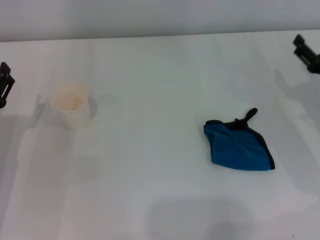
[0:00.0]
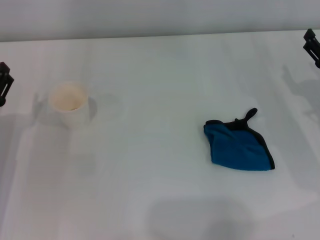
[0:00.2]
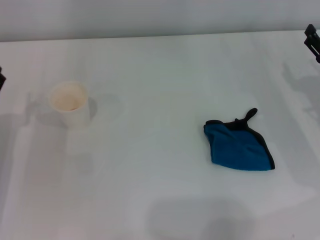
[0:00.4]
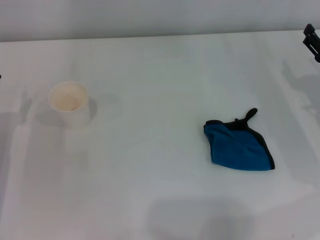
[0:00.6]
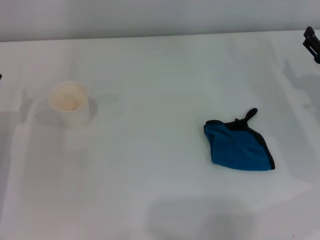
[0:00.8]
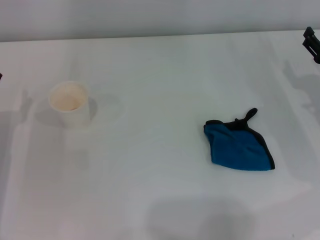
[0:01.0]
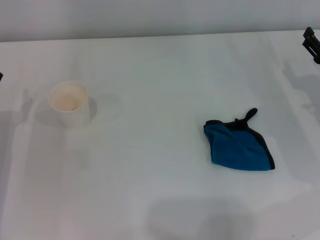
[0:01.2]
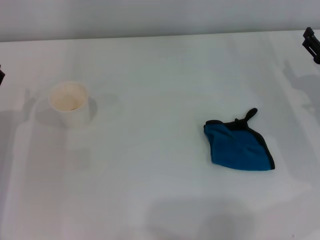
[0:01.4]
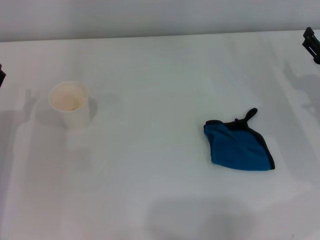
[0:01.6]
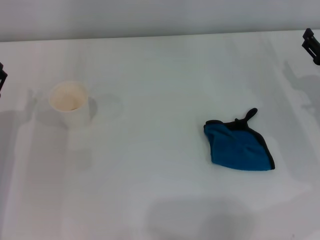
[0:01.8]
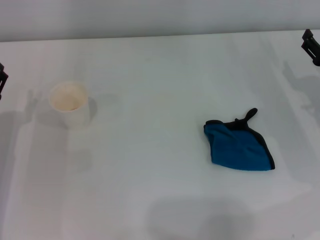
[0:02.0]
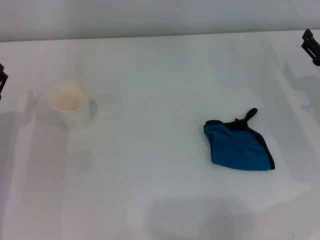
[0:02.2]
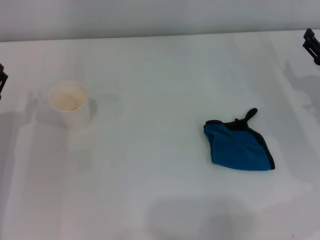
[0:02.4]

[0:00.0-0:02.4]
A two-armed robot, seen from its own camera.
0:00.0 to 0:01.2: The grippers stay close to where they were, moving slightly.
0:01.2 to 0:02.4: Neither gripper changes place.
